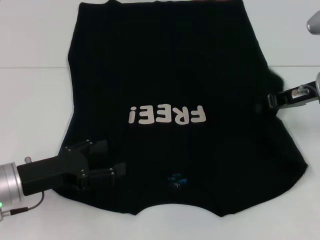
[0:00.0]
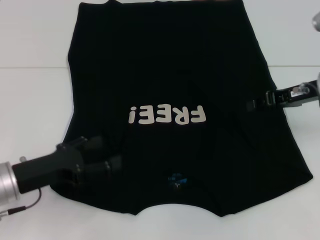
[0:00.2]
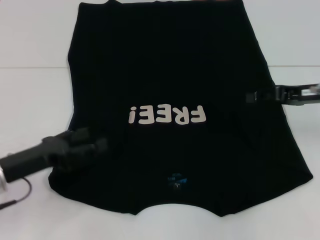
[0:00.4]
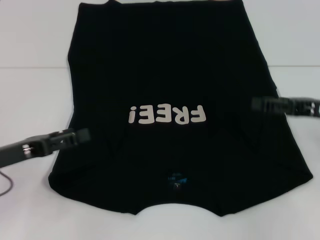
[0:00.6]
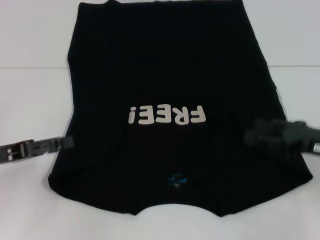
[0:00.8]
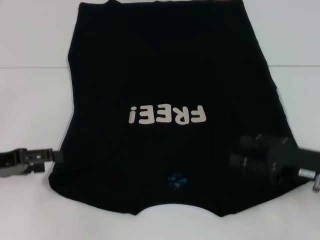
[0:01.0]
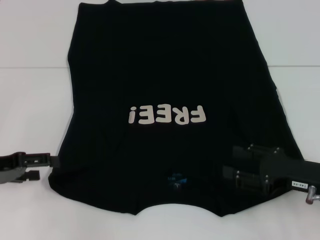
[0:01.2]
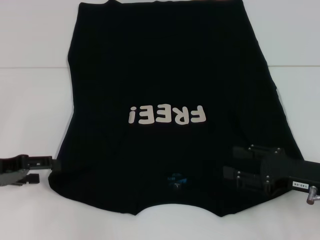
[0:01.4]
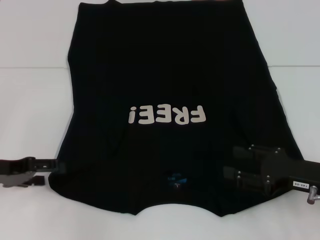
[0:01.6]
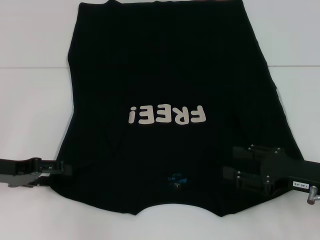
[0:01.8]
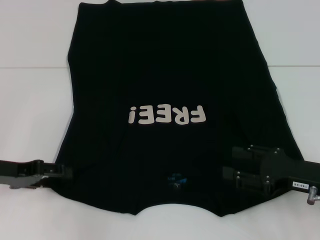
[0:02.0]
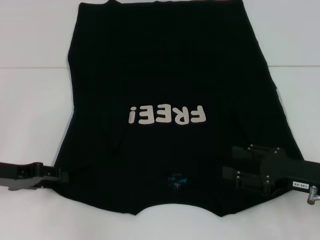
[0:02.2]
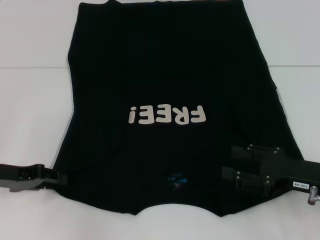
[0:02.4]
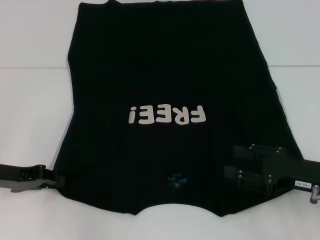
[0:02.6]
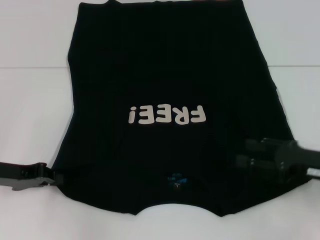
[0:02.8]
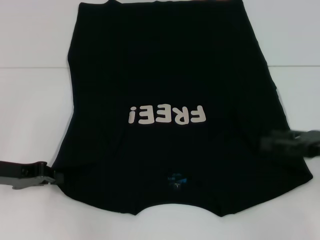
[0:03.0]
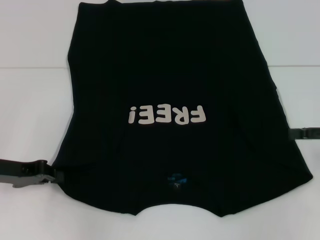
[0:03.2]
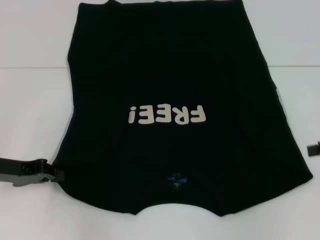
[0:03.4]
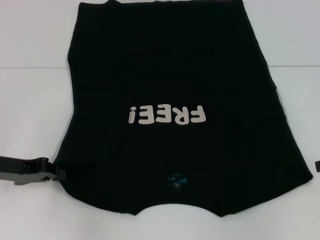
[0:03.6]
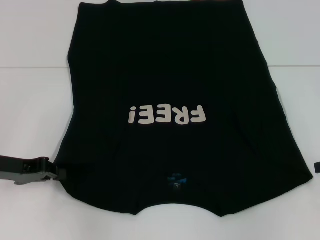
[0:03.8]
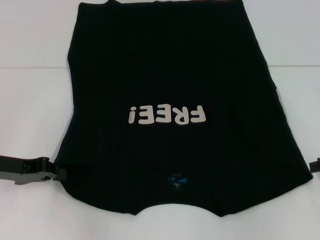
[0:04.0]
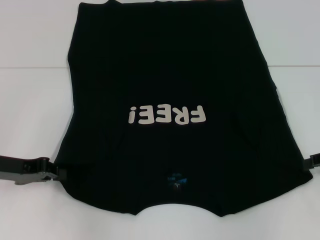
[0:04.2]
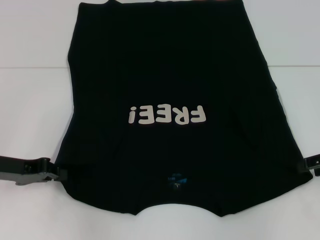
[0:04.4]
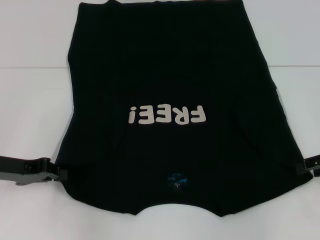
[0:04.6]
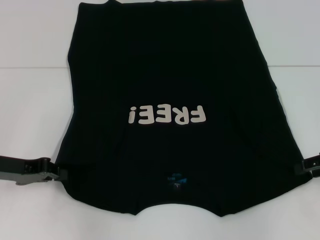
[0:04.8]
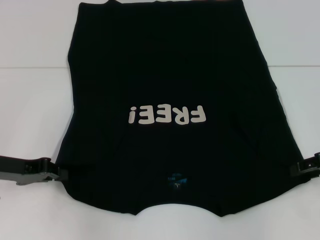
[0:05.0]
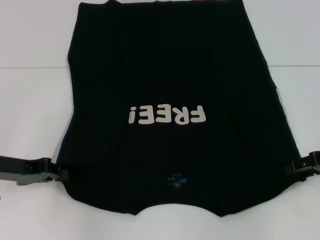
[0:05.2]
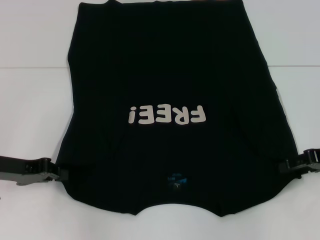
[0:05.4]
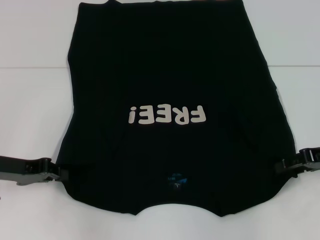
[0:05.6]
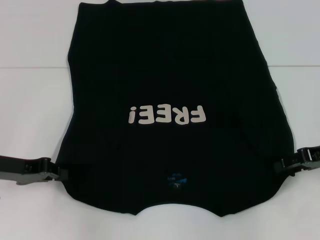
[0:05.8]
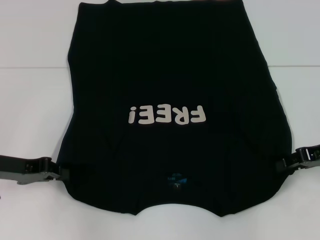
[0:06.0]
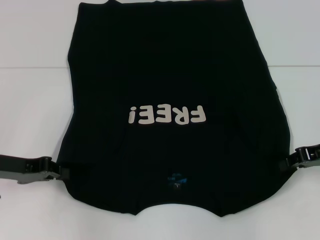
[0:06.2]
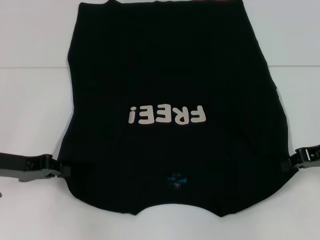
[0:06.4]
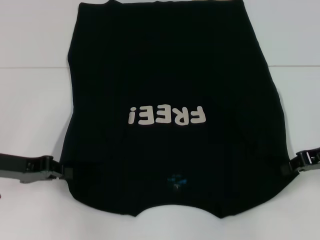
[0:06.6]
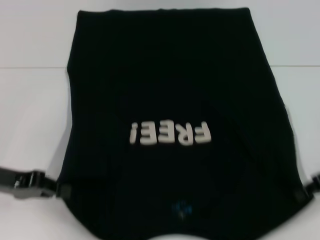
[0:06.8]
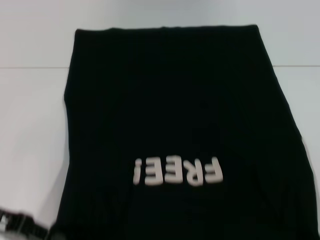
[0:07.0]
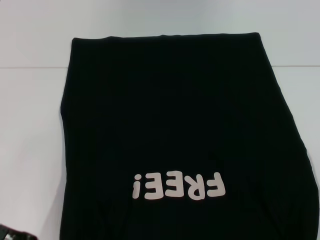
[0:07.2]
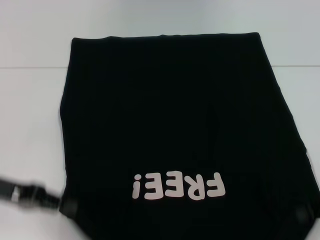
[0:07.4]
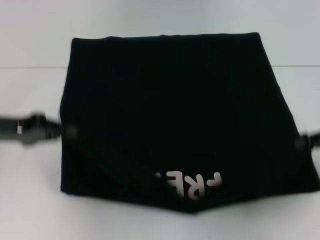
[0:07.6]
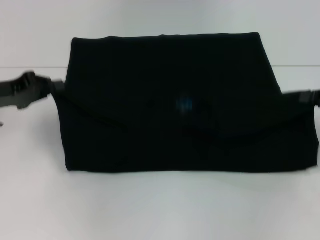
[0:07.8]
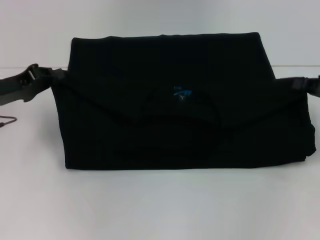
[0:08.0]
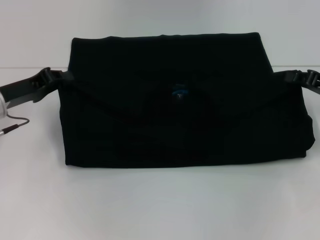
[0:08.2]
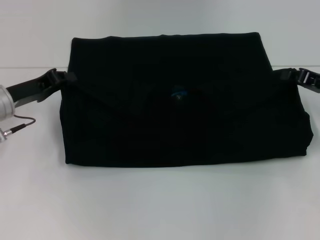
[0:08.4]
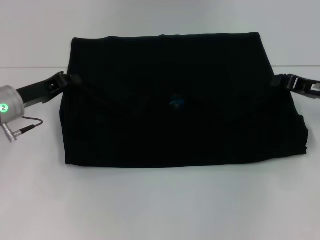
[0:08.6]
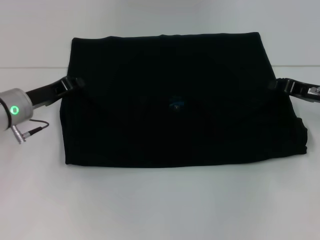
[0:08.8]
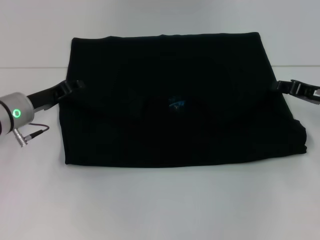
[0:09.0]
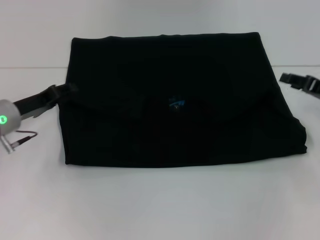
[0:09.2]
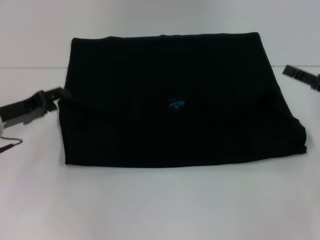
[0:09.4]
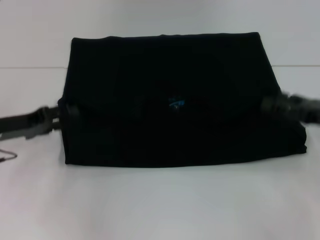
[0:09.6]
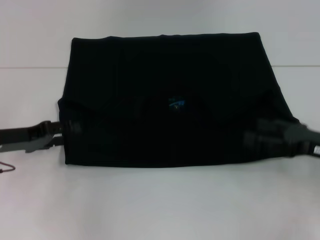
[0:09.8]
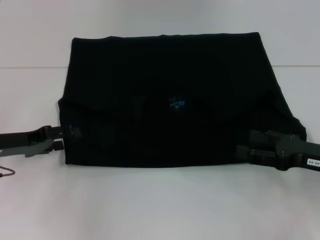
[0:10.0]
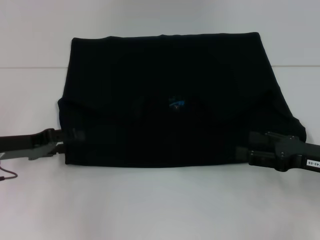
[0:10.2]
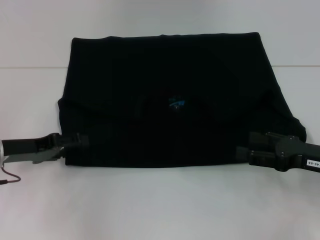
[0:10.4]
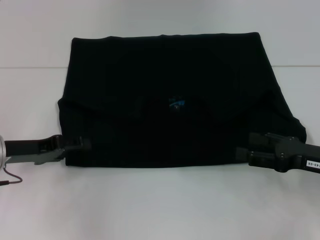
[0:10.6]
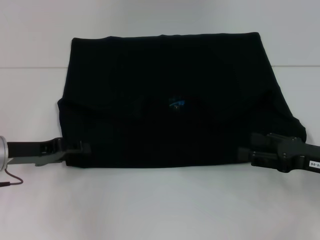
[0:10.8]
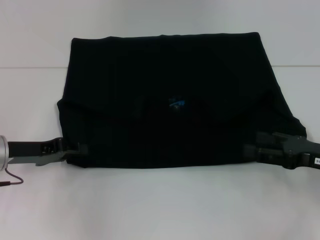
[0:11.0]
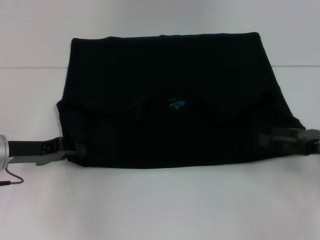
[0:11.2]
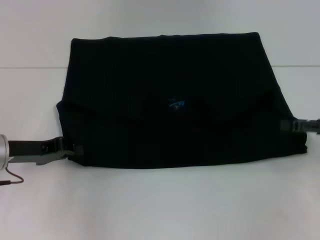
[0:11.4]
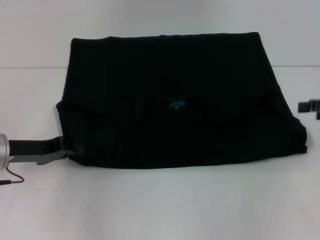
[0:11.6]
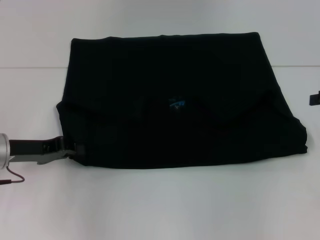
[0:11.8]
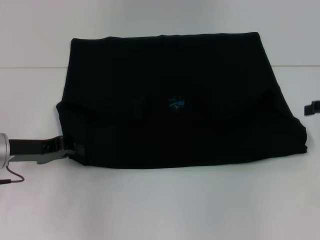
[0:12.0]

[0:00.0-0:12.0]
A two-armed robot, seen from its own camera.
Step, 0:00.6 to 0:02.8: Grab the bottom left corner with your left hand.
Step, 0:03.0 to 0:06.6: Grab the bottom right corner with your right hand.
Step, 0:06.8 to 0:09.0: Fold the clothes with your left hand.
Step, 0:06.8 to 0:09.0: Fold the clothes with your right hand.
0:00.0 to 0:01.6: The right gripper moves backward and downward, about 15 cm, and opens up; the left gripper heads to the left, covering some 10 cm.
0:01.6 to 0:03.0: The right gripper goes about 5 cm to the right. Meanwhile the left gripper closes.
0:04.4 to 0:06.0: The grippers make only small movements.
0:06.0 to 0:07.6: The left gripper moves upward, roughly 5 cm, and goes backward and returns, approximately 5 cm each way. The right gripper shifts by approximately 5 cm, and closes its fingers.
0:07.6 to 0:09.0: The left gripper is displaced downward, forward and to the right by approximately 10 cm. Meanwhile the right gripper is displaced forward by approximately 5 cm.
0:09.0 to 0:10.4: The left gripper moves backward, approximately 5 cm, and opens up. The right gripper is displaced backward by approximately 10 cm, and opens up.
0:10.4 to 0:12.0: The right gripper shifts some 15 cm forward, upward and to the right; the left gripper closes up.

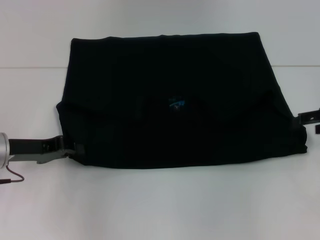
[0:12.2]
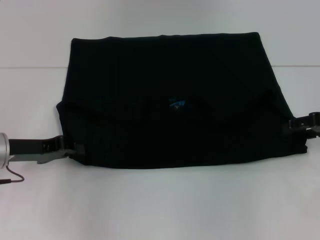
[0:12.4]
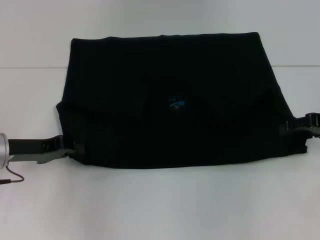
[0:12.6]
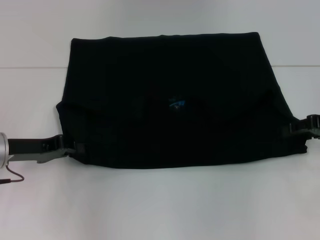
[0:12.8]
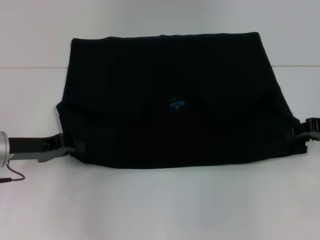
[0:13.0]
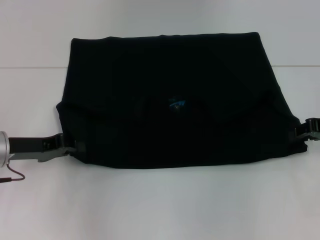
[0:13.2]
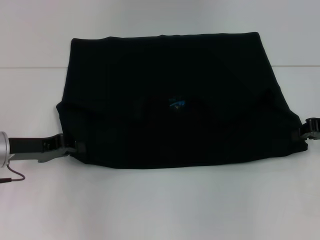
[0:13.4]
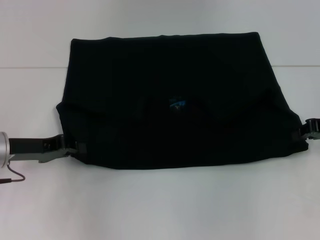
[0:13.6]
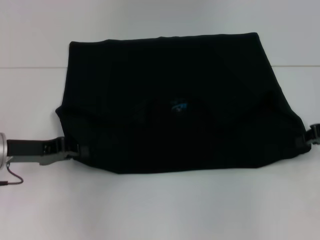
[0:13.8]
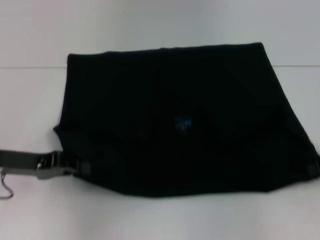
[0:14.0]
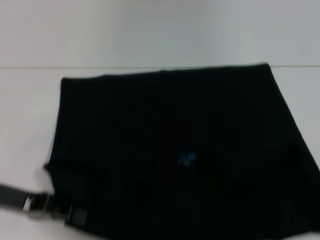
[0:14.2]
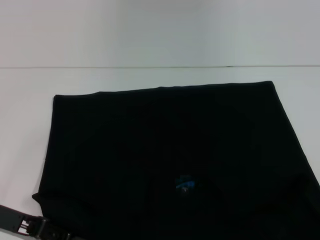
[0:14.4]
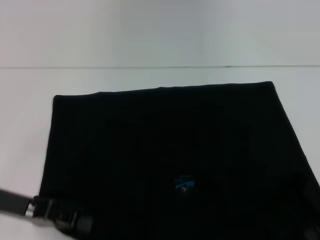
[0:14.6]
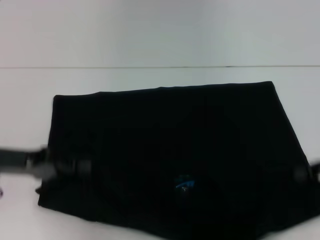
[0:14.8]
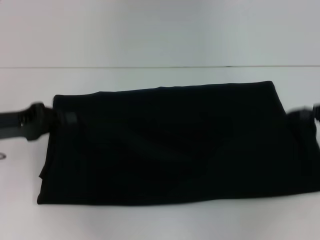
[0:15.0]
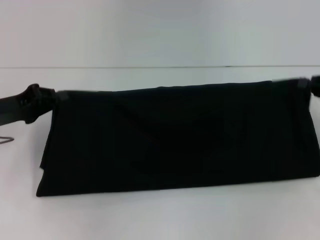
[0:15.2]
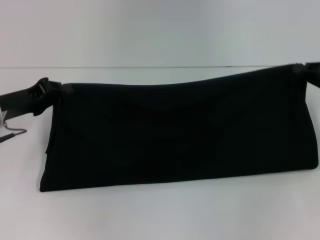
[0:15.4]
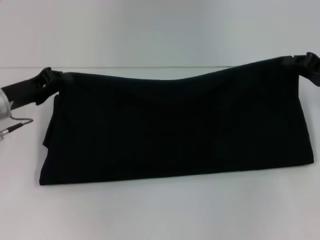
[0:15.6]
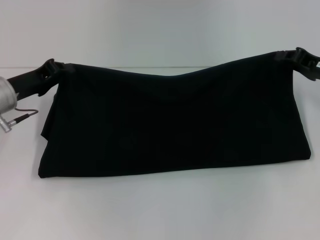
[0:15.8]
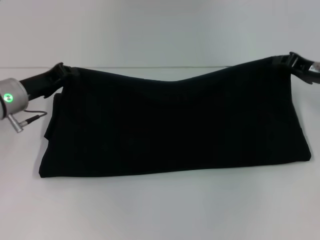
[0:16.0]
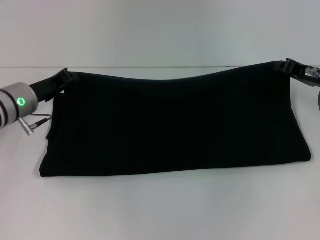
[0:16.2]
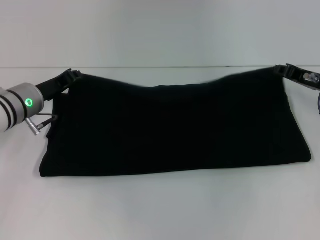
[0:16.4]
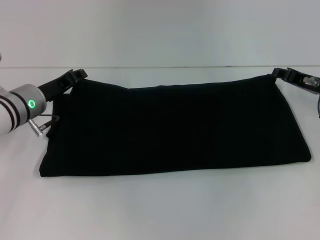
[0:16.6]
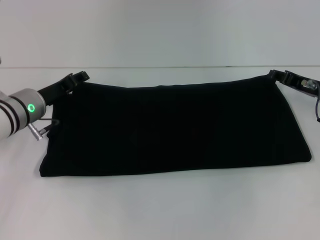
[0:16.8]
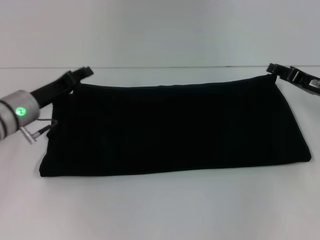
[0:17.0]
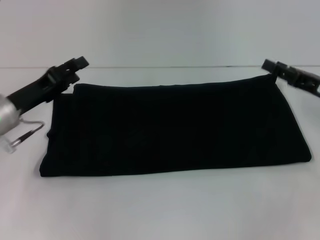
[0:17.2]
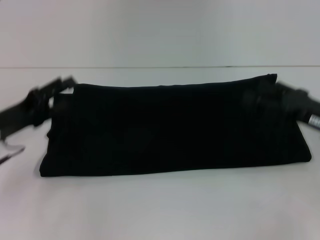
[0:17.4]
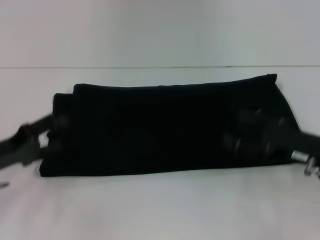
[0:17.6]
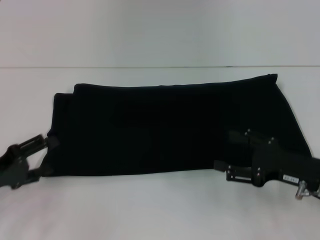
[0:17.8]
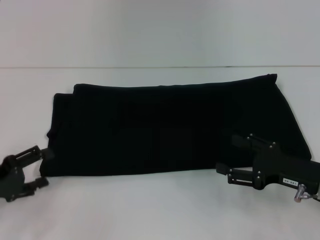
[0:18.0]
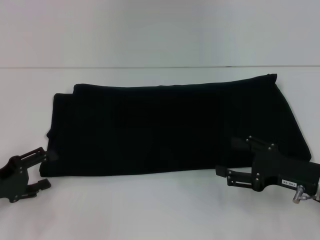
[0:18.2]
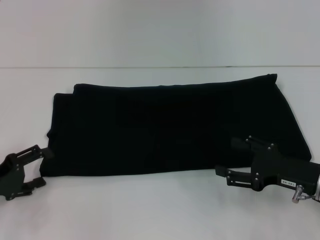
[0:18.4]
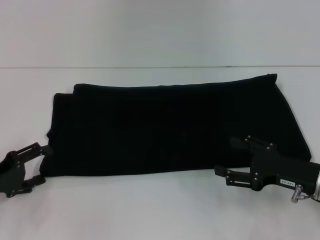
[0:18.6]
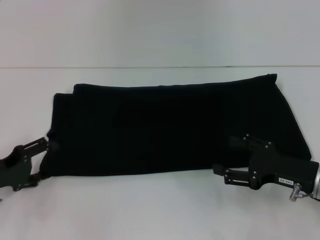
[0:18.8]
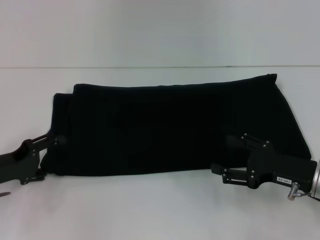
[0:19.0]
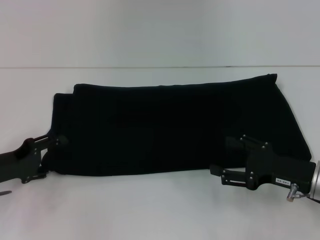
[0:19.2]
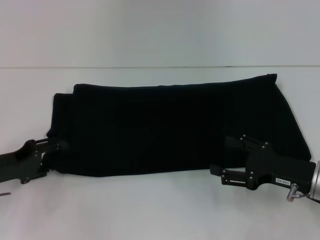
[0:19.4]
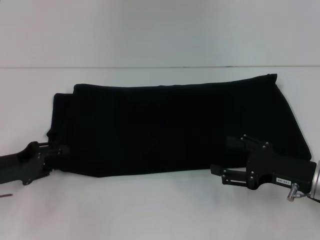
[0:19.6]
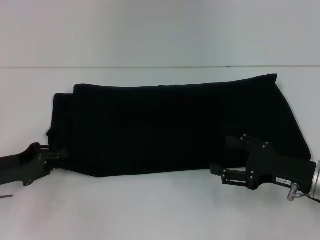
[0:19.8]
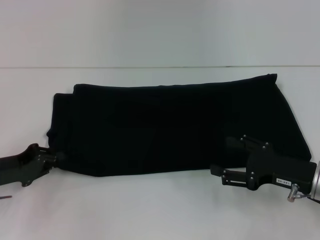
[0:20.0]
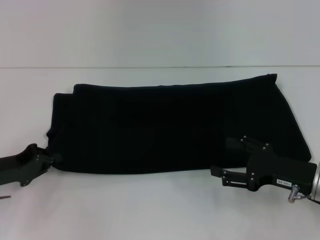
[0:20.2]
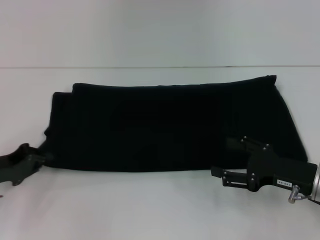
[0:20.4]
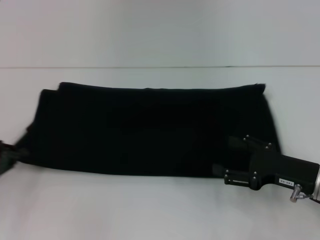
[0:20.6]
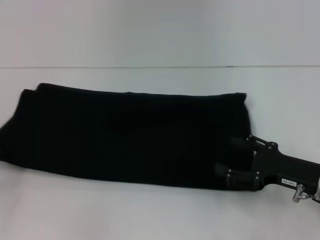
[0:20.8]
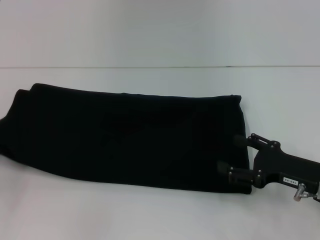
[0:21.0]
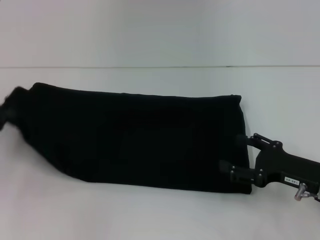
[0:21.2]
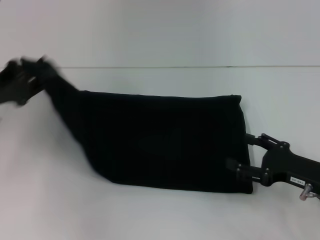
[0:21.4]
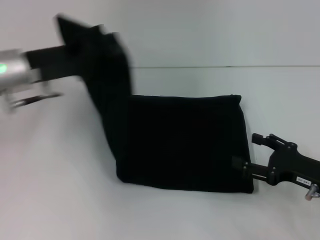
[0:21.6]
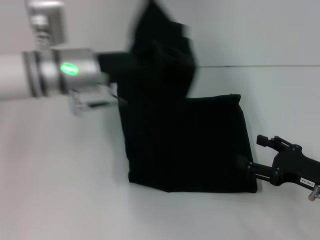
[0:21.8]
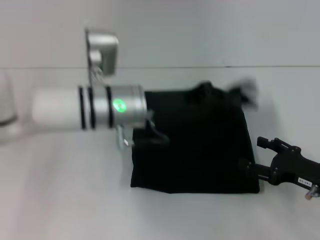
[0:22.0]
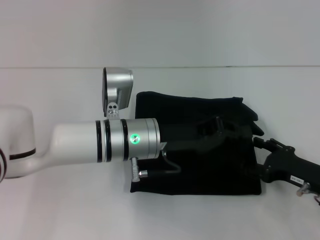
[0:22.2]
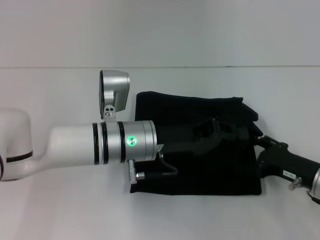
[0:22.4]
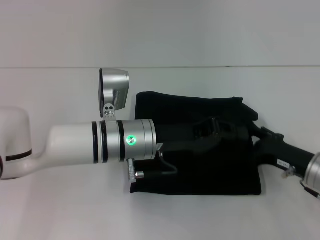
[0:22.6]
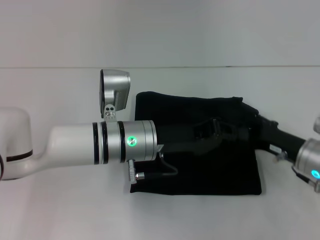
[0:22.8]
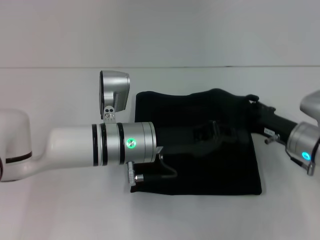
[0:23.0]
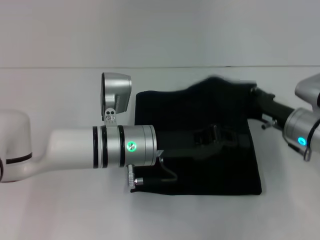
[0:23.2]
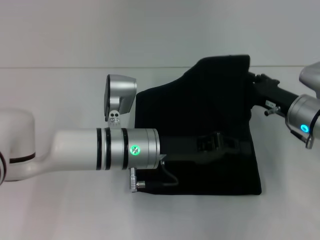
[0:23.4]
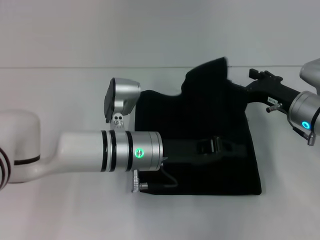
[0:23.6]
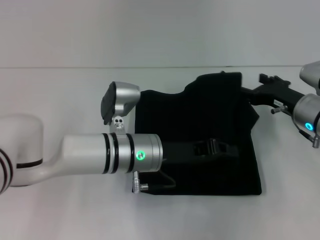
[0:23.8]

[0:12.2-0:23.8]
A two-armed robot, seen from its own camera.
Step, 0:12.2 to 0:14.4: Pull the clothes with your left hand.
Step, 0:12.2 to 0:14.4: Pull the clothes with your right hand.
Step, 0:14.6 to 0:17.0: Fold the clothes with your right hand.
0:12.2 to 0:13.6: The right gripper closes up.
0:15.0 to 0:16.6: The left gripper travels forward and to the right by about 10 cm; the right gripper moves to the left, forward and downward, about 10 cm.
0:16.6 to 0:18.0: The left gripper shifts roughly 20 cm backward and to the left, and opens its fingers, while the right gripper is displaced backward by roughly 15 cm, and opens its fingers.
0:18.0 to 0:19.4: The grippers make only small movements.
0:19.4 to 0:21.0: The left gripper goes roughly 10 cm to the left, and closes its fingers.
0:21.0 to 0:22.4: The left gripper moves to the right, approximately 35 cm.
0:22.4 to 0:23.8: The right gripper heads forward, covering roughly 10 cm.
